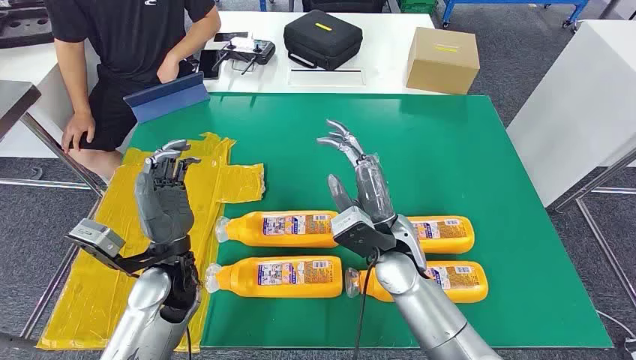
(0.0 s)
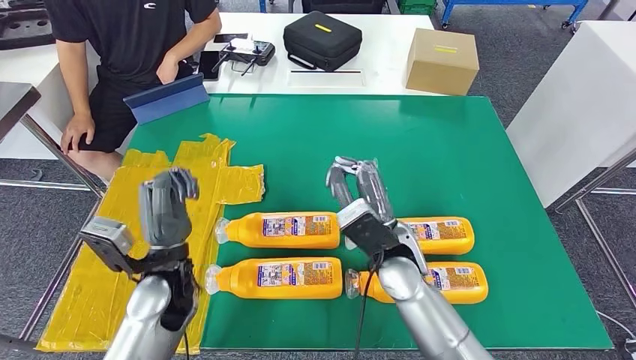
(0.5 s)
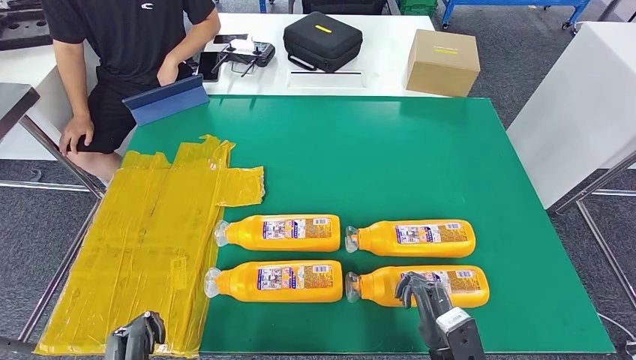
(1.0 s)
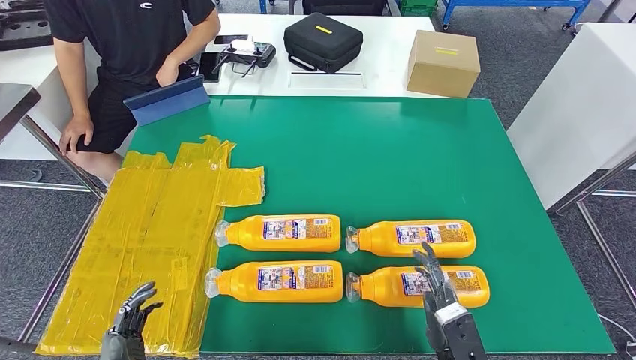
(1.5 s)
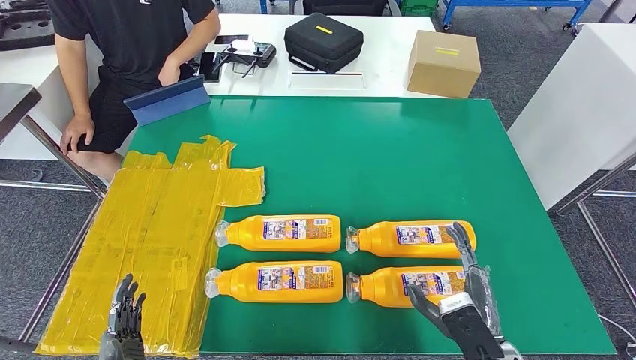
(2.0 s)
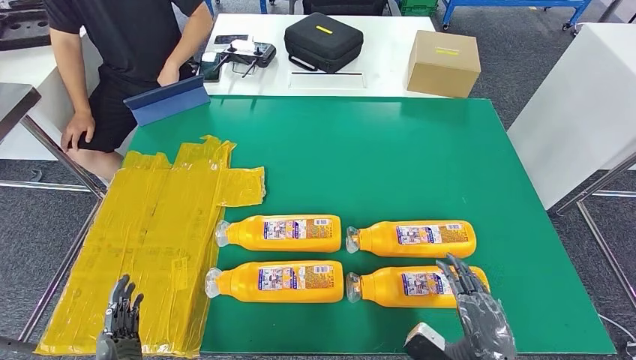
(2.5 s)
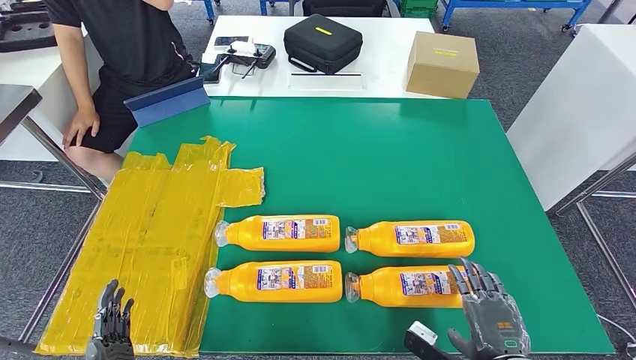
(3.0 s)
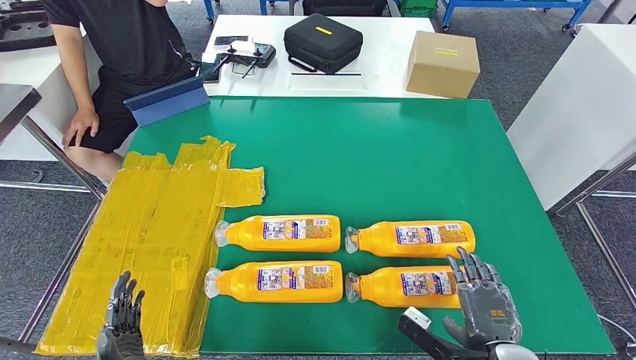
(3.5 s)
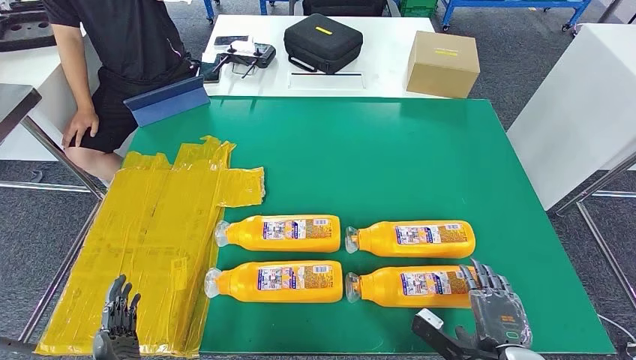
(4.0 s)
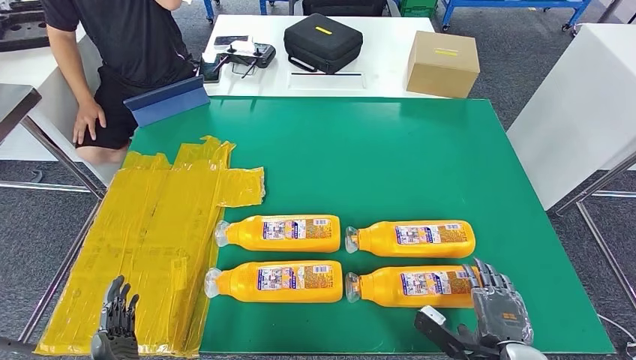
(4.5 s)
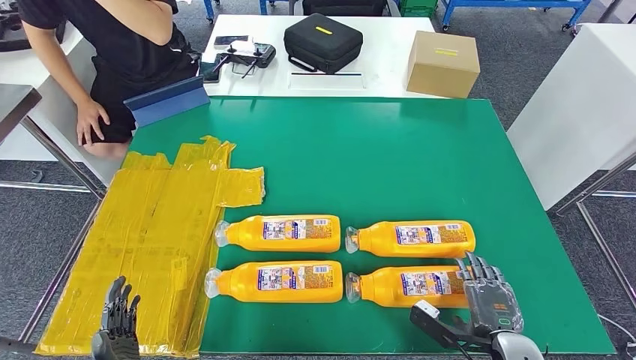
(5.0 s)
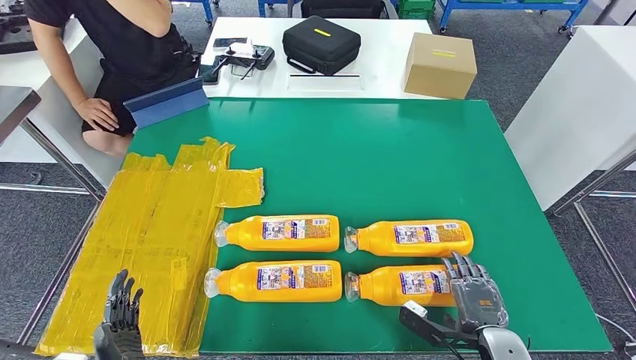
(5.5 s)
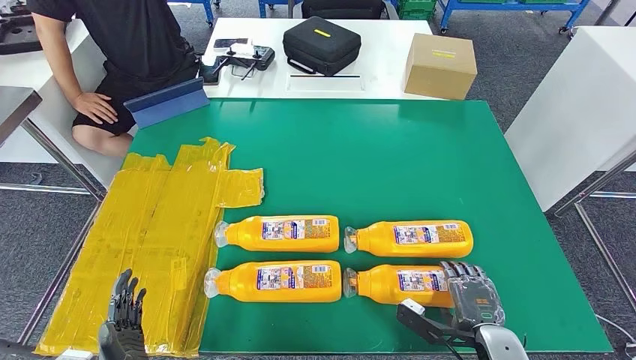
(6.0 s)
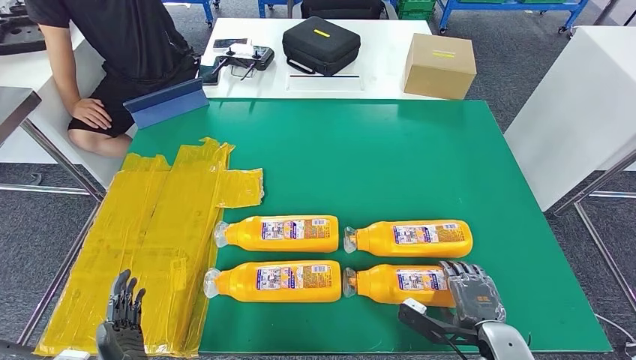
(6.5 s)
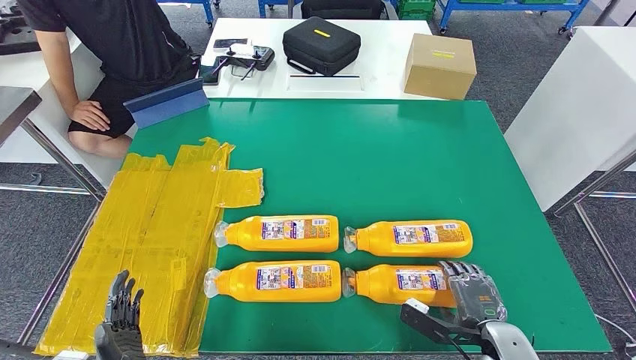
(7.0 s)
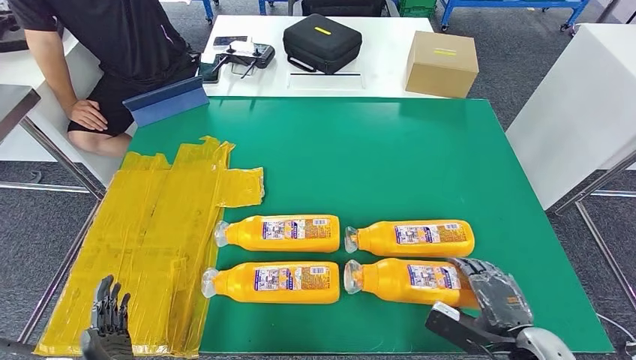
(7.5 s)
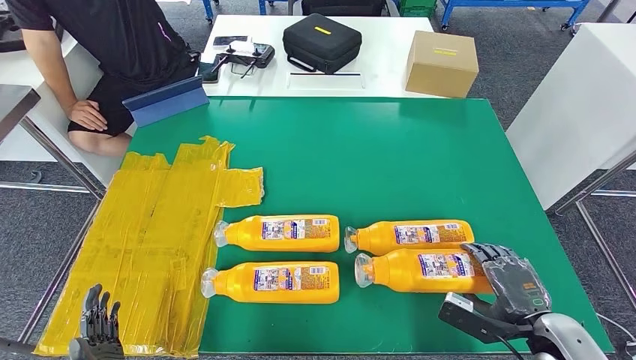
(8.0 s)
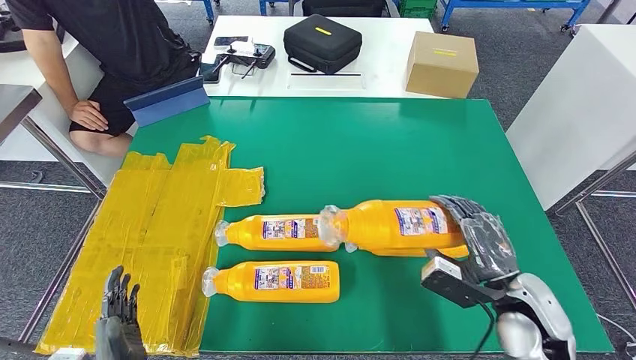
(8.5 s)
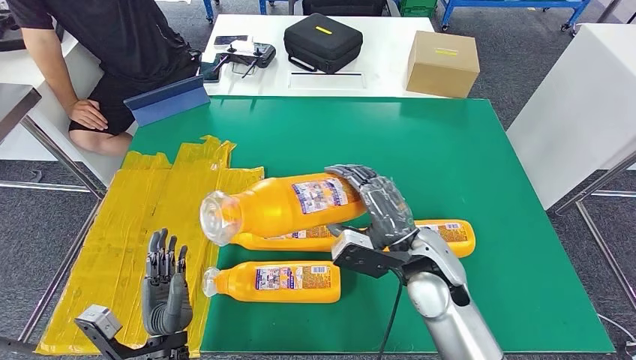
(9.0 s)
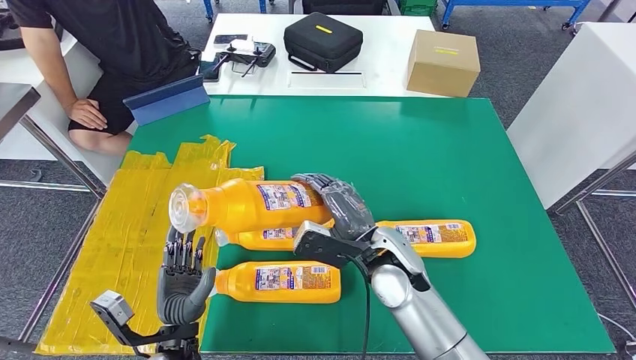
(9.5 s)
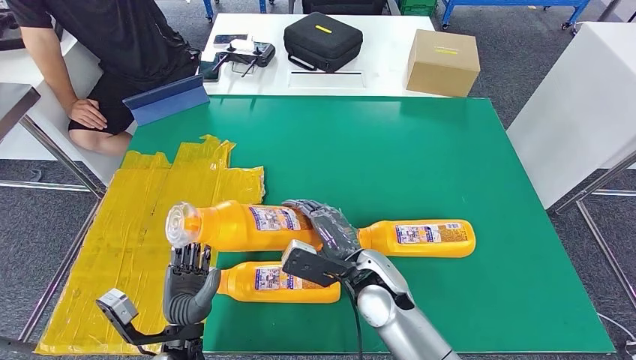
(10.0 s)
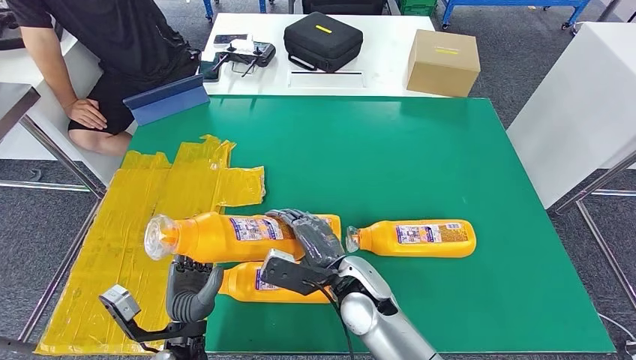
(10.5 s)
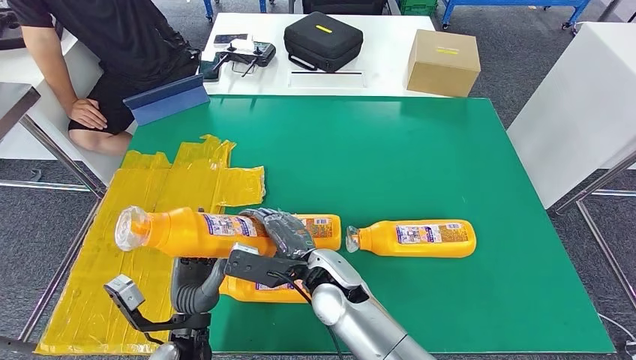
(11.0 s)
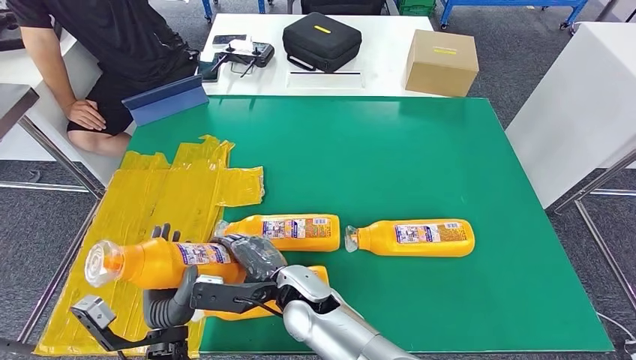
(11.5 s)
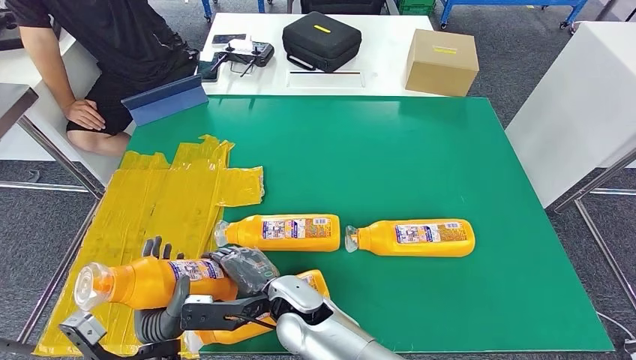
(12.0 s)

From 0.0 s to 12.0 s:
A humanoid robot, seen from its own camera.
Step, from 0.0 s to 9.5 s: Take the bottle from the table.
From 2.0 s to 4.0 s: The right hand changes place by about 5 cm.
From 4.0 s to 6.0 s: The right hand changes place by roughly 5 cm.
From 6.0 s to 8.0 s: The right hand moves to the right and upward, approximately 10 cm.
From 8.0 s to 10.0 s: The left hand heads forward and to the right, covering about 15 cm, while the right hand goes roughly 30 cm to the left and forward.
From 10.0 s to 12.0 s: The right hand is displaced to the left by about 15 cm.

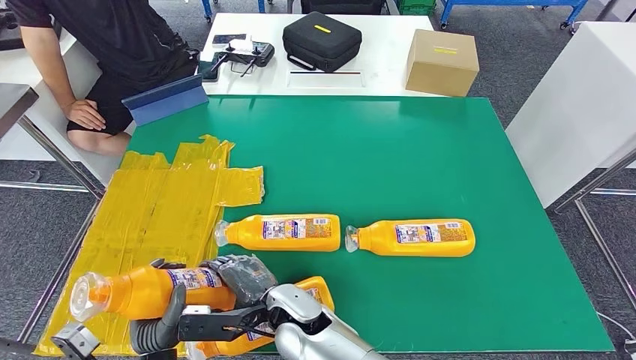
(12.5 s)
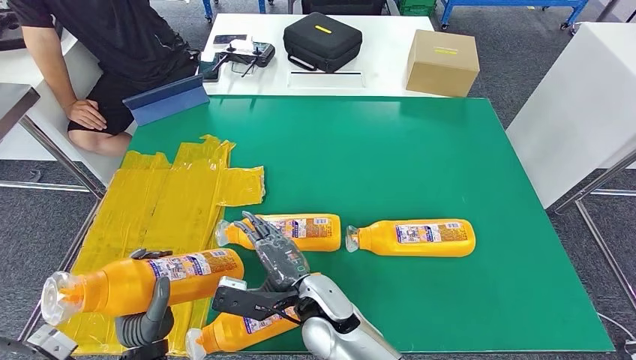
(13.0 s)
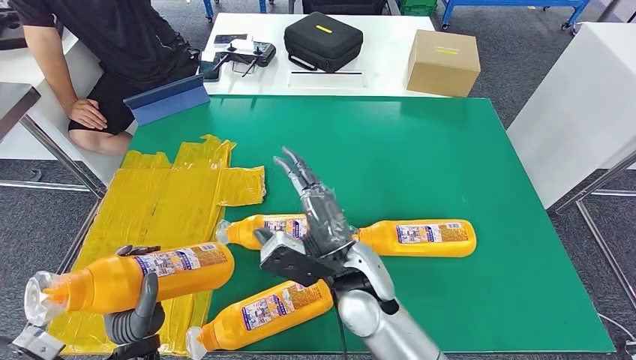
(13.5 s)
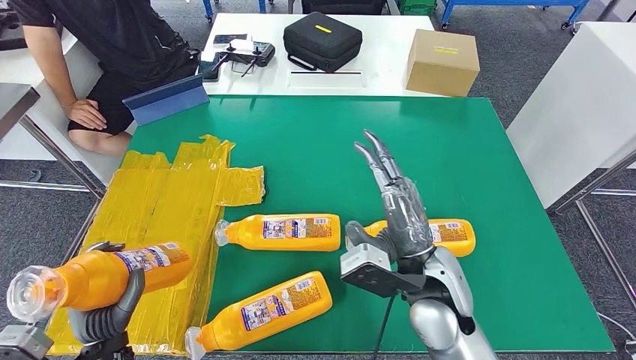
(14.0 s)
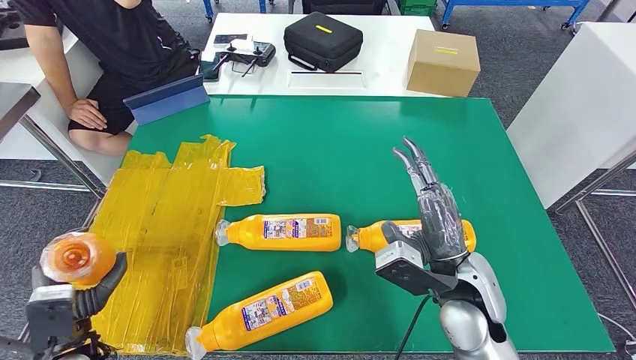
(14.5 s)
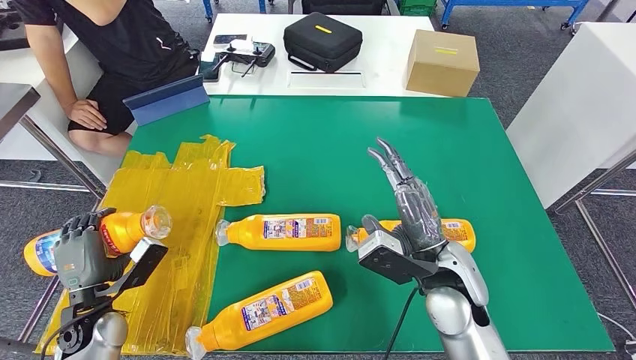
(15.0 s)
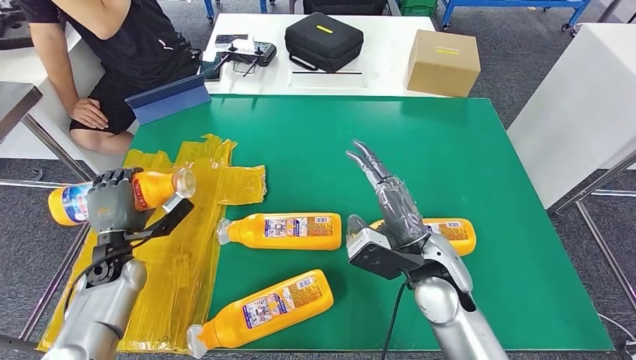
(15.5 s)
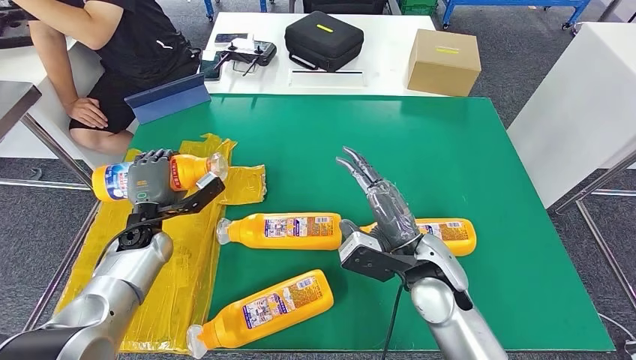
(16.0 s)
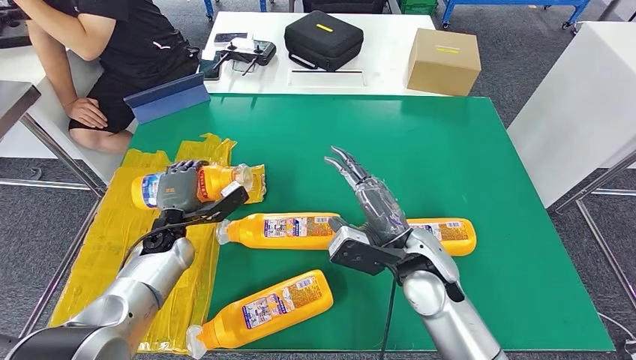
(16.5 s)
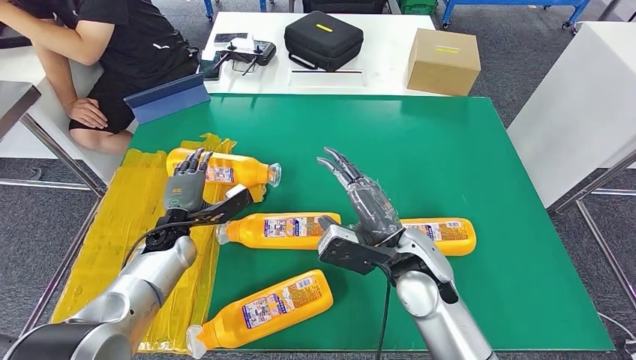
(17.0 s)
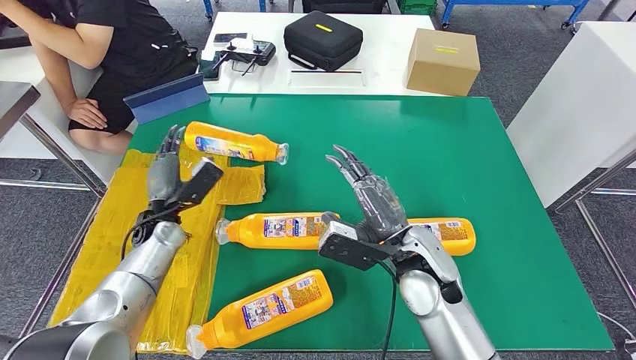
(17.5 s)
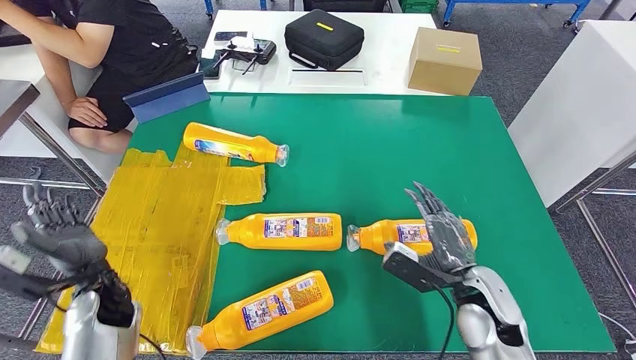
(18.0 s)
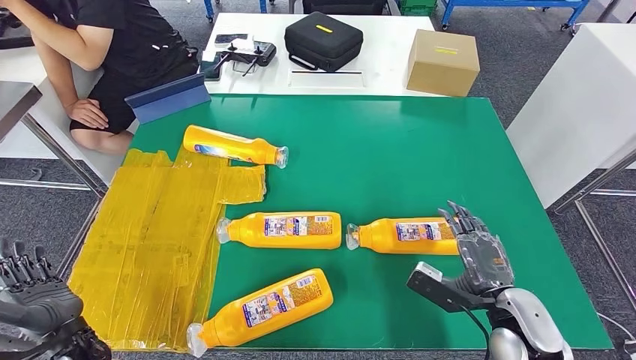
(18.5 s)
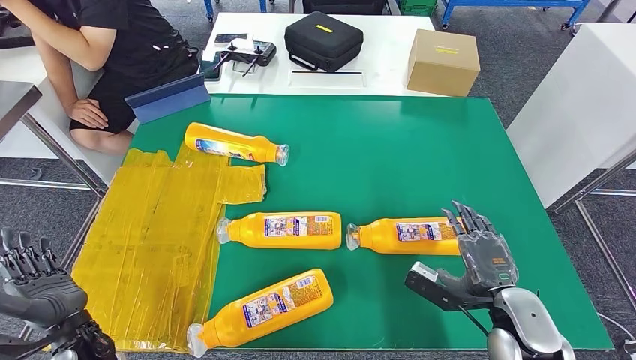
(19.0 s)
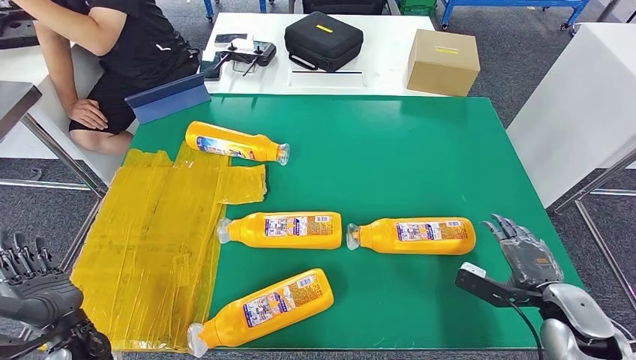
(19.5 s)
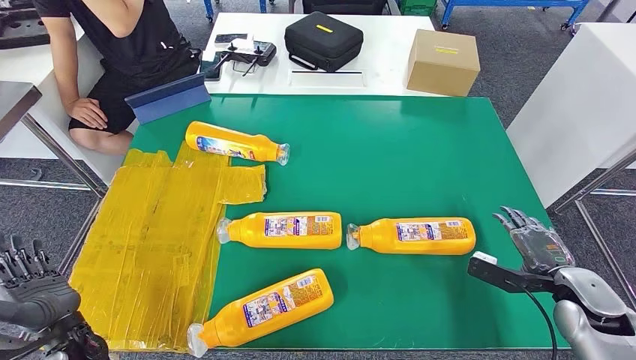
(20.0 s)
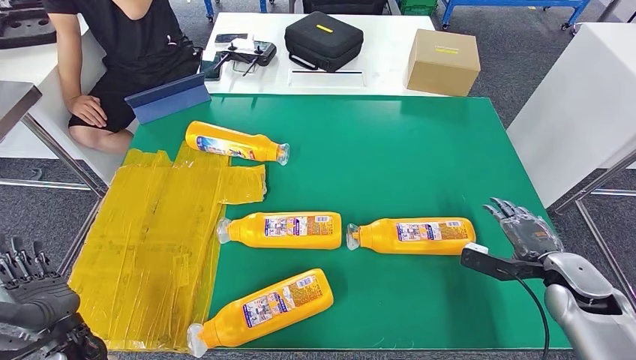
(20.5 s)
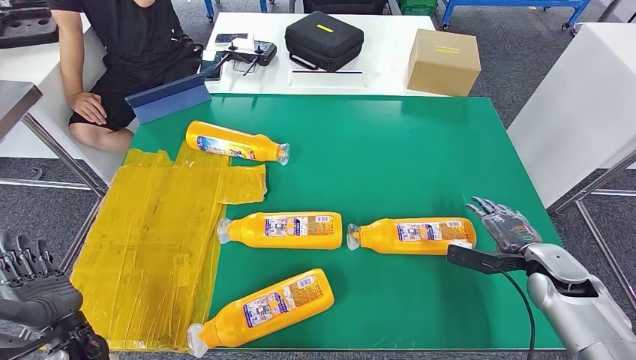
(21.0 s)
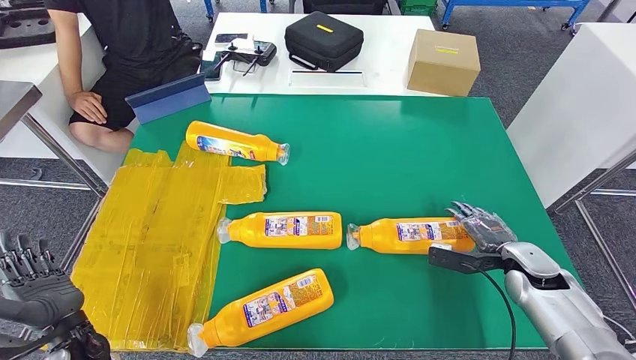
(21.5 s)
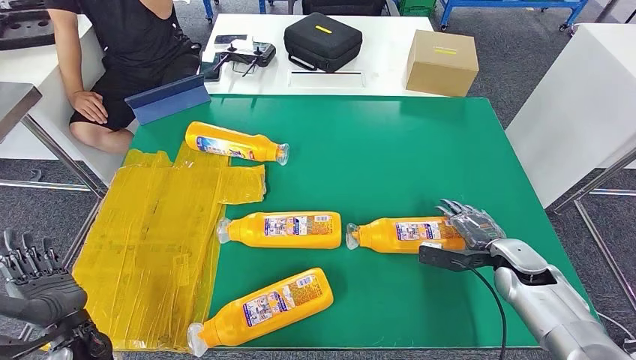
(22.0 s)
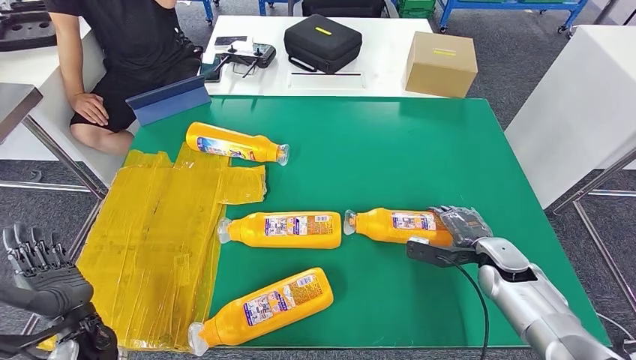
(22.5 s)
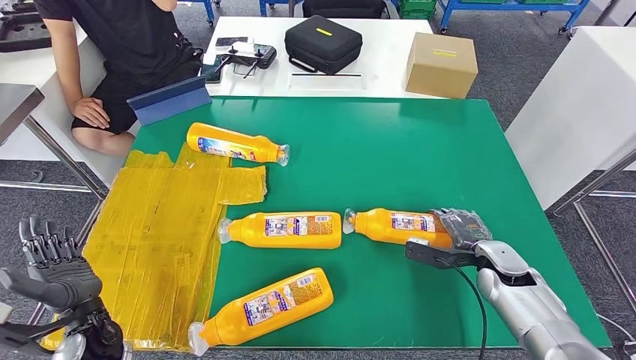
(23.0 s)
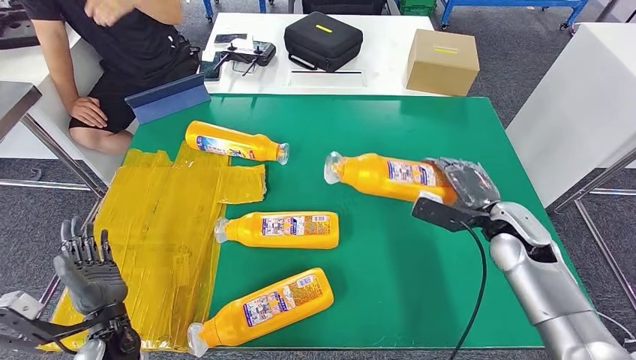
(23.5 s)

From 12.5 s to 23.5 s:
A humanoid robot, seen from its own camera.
Step, from 12.5 s to 16.0 s: Flip the bottle to face forward.
From 12.5 s to 14.5 s: The right hand moves to the right, approximately 25 cm. Meanwhile the left hand travels to the left by approximately 15 cm.
From 20.0 s to 21.5 s: The right hand heads forward and to the left, covering roughly 10 cm.
From 21.5 s to 23.5 s: The right hand shifts some 10 cm upward and to the left.
